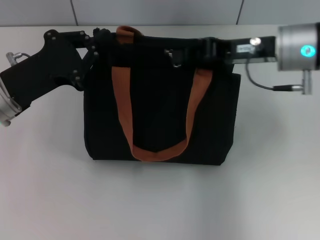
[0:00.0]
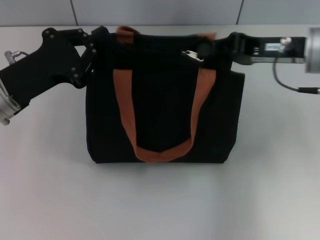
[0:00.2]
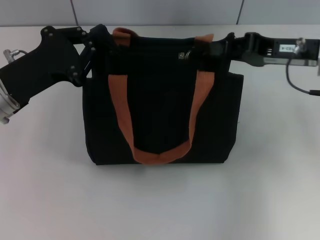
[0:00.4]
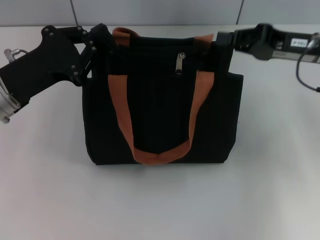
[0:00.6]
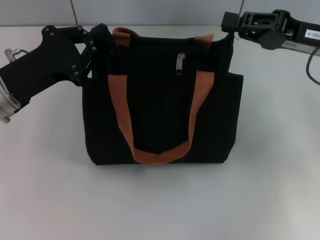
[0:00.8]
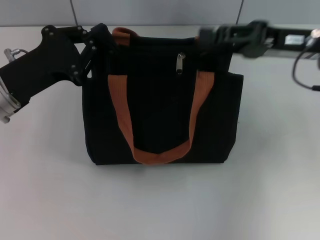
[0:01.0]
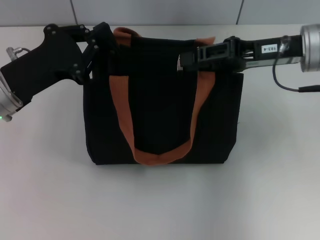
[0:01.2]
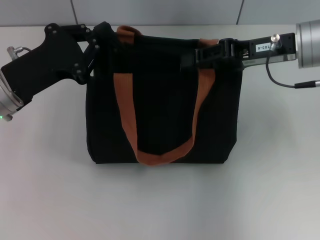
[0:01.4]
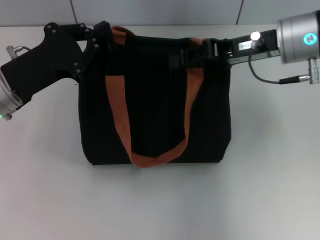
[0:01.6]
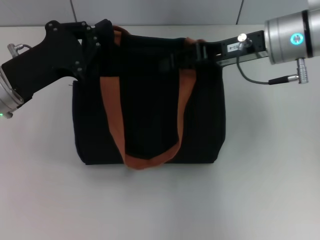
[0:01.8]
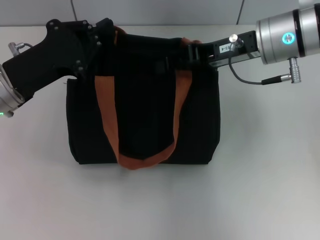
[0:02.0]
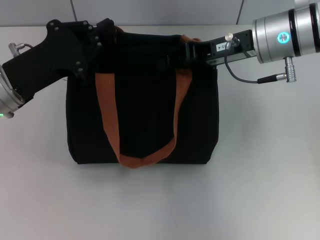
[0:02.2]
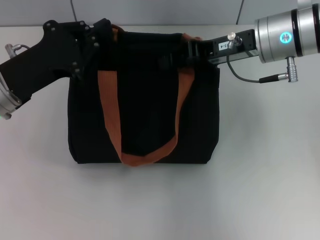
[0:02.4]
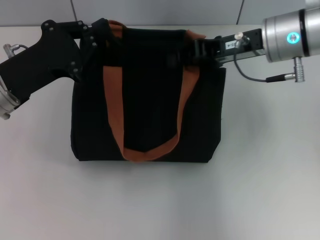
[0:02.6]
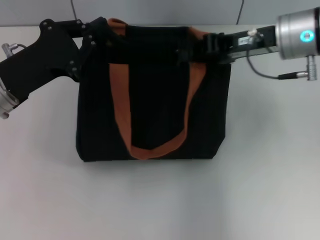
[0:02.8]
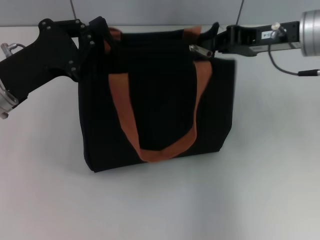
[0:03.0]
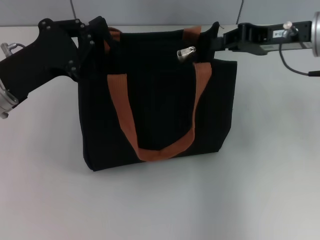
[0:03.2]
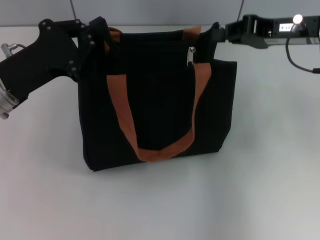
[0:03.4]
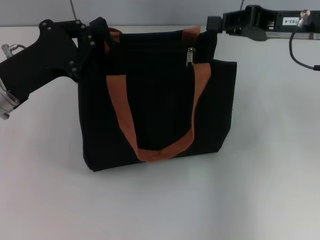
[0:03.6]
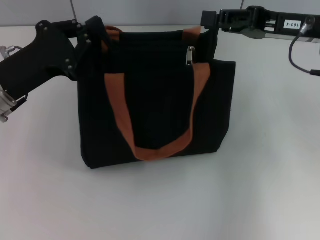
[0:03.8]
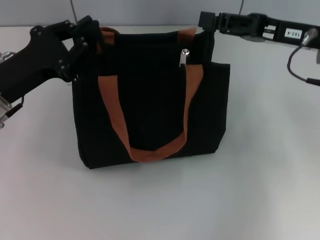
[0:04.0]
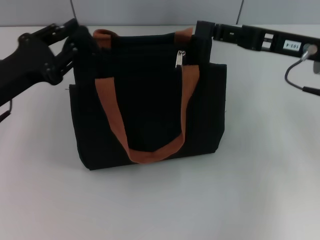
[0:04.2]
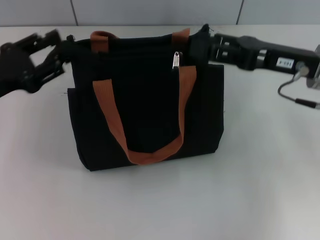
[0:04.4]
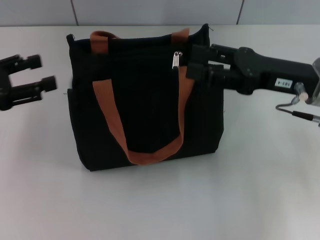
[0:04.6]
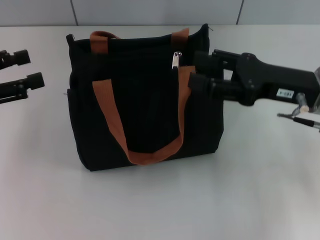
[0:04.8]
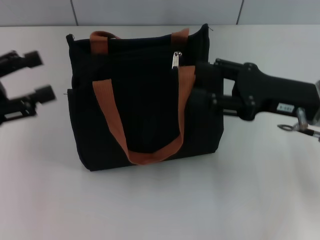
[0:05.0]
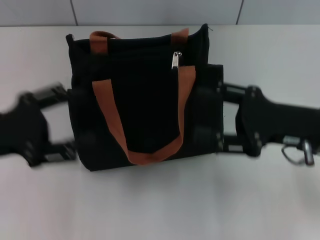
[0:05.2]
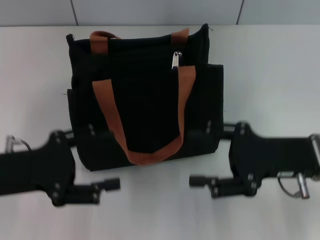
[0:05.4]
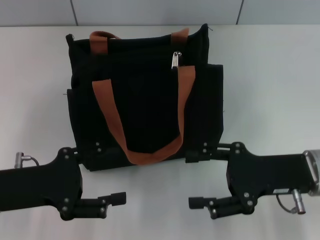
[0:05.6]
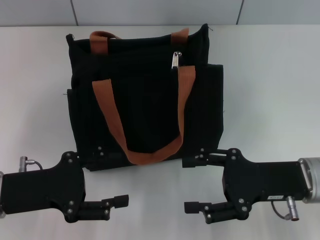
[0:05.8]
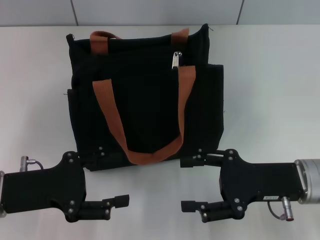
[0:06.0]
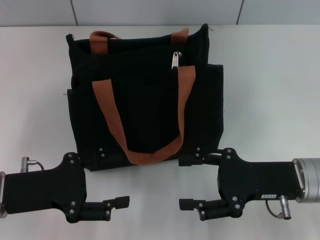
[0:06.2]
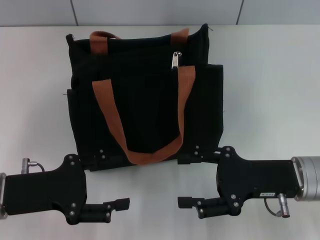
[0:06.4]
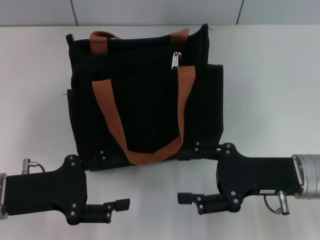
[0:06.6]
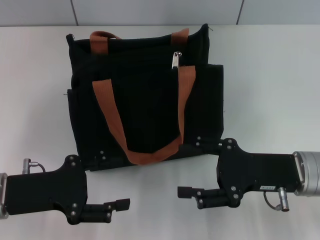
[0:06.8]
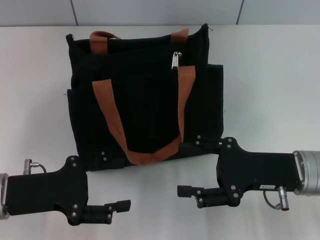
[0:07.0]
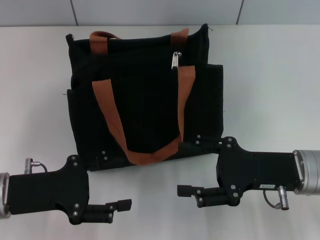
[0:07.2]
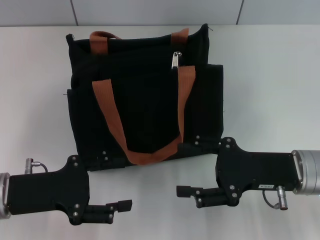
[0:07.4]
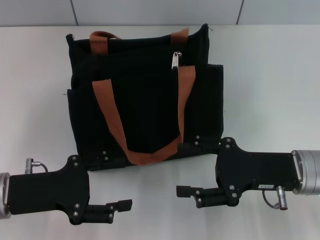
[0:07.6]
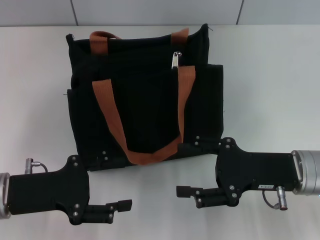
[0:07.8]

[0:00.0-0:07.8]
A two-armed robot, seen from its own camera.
Step, 0:00.0 to 0:03.0: Pull up the zipper with your right hand.
Step, 0:03.2 to 0:04.4: Grab the zipper with your left hand.
0:00.0 to 0:01.6: The right gripper opens its fingers.
0:01.6 to 0:03.2: The right gripper closes.
0:03.2 to 0:04.6: The left gripper shifts approximately 10 cm to the left, and opens. The right gripper heads backward, covering approximately 5 cm, and opens.
0:04.6 to 0:06.2: The right gripper moves downward and backward, some 10 cm, while the left gripper travels to the right, downward and backward by approximately 15 cm.
0:06.2 to 0:07.8: Both grippers stay about where they are.
